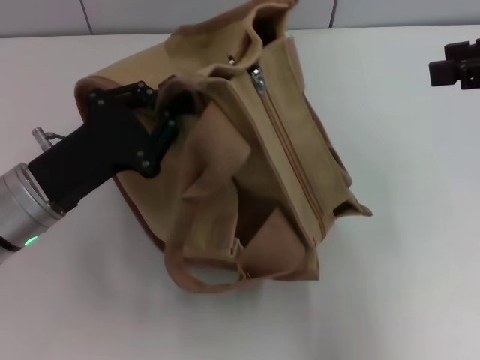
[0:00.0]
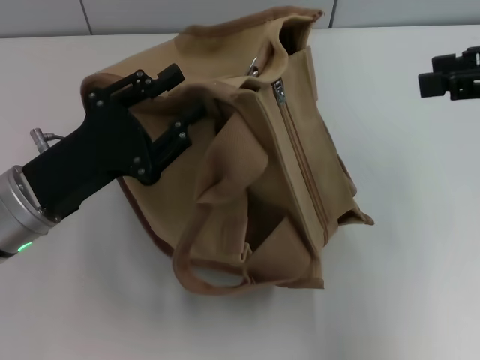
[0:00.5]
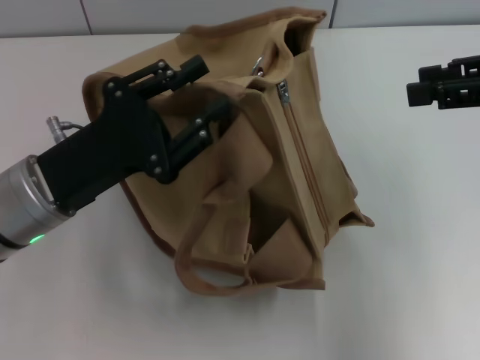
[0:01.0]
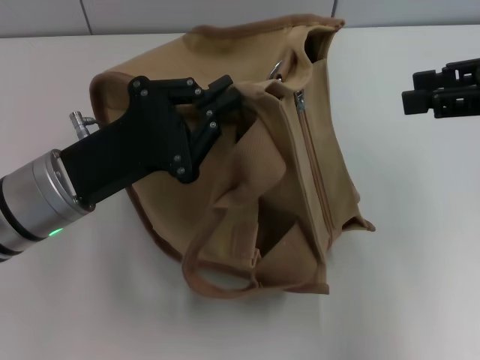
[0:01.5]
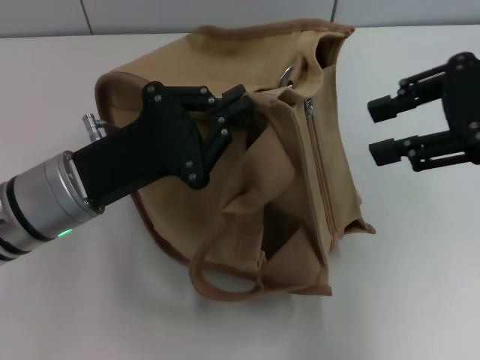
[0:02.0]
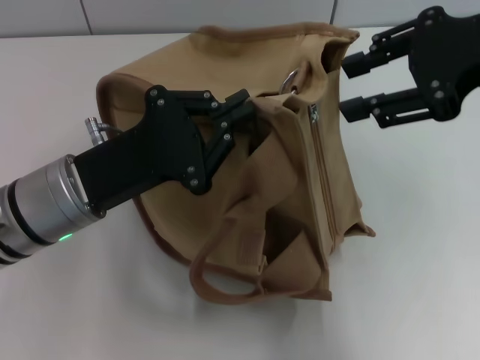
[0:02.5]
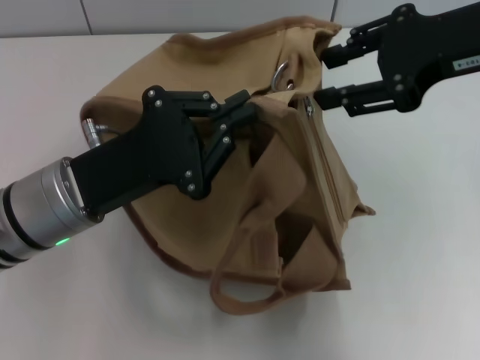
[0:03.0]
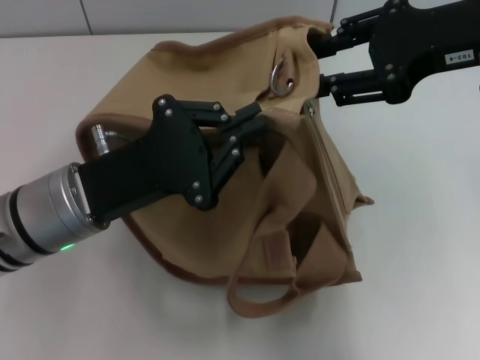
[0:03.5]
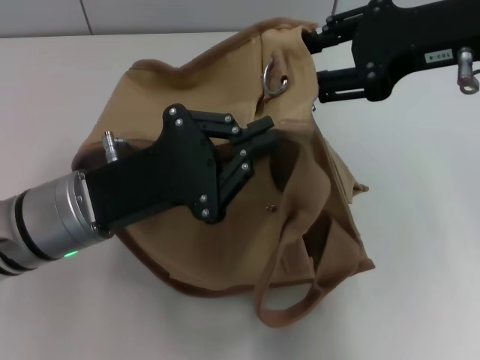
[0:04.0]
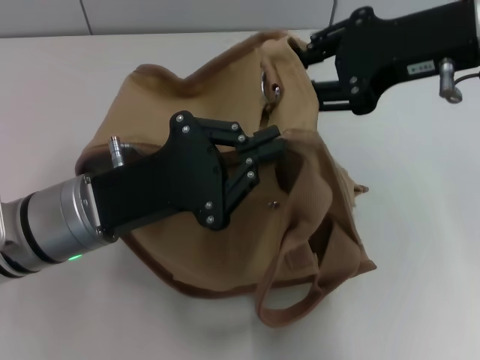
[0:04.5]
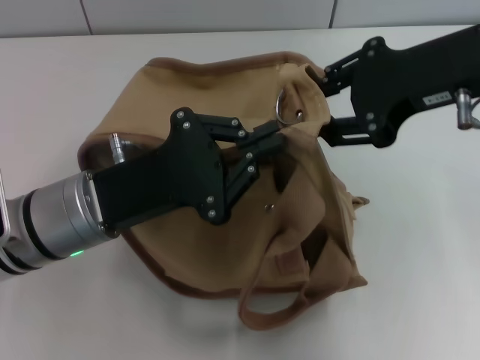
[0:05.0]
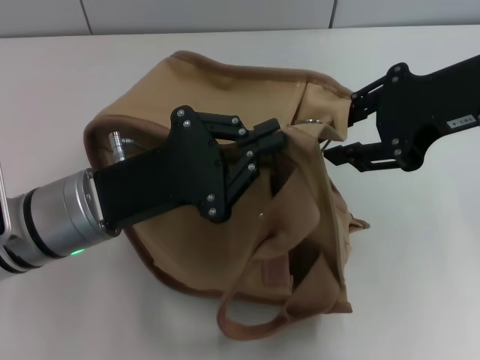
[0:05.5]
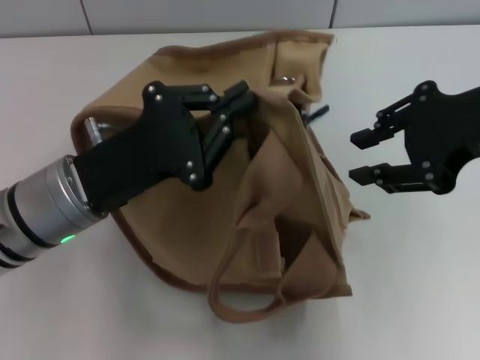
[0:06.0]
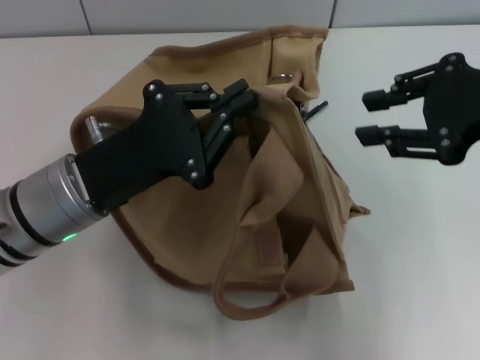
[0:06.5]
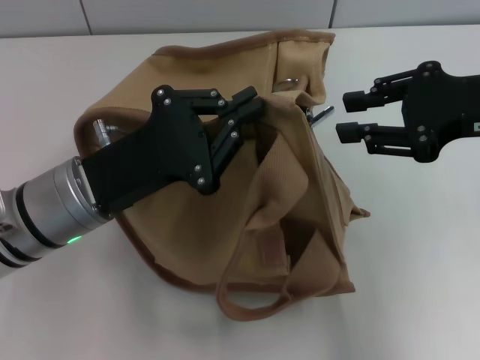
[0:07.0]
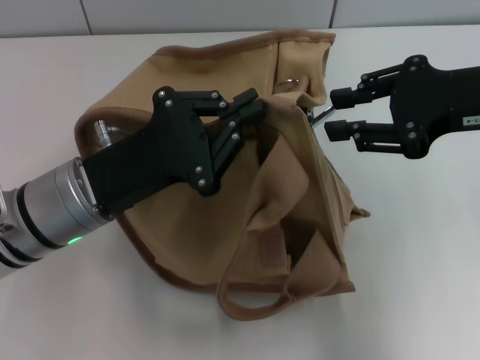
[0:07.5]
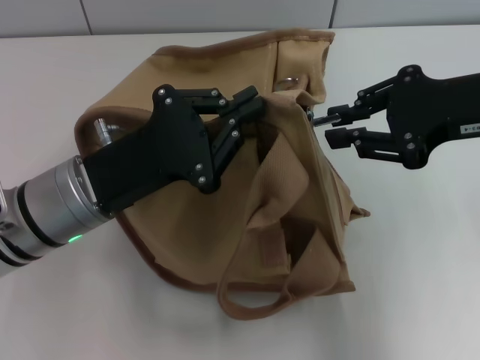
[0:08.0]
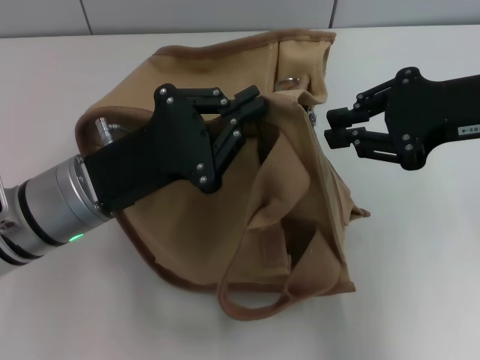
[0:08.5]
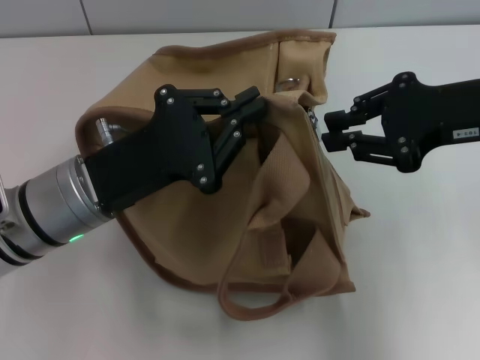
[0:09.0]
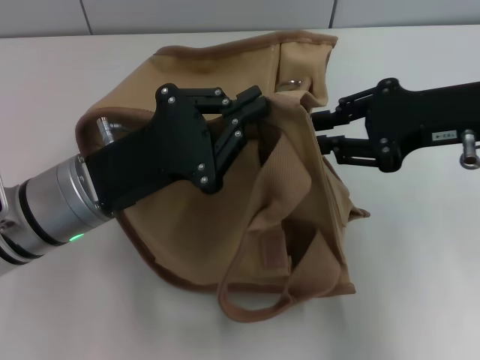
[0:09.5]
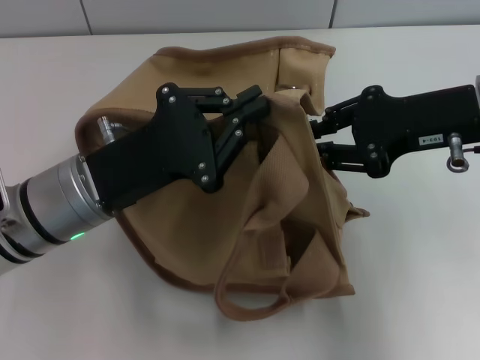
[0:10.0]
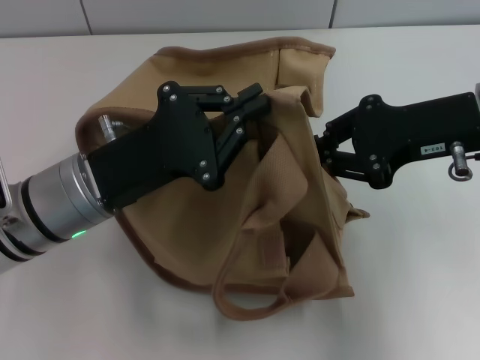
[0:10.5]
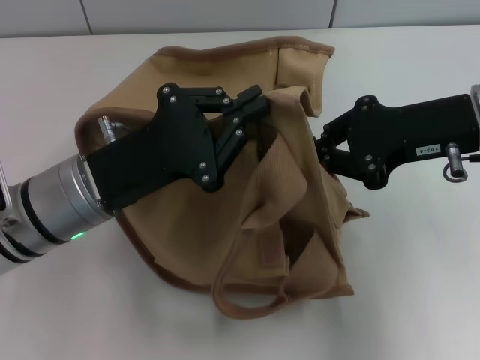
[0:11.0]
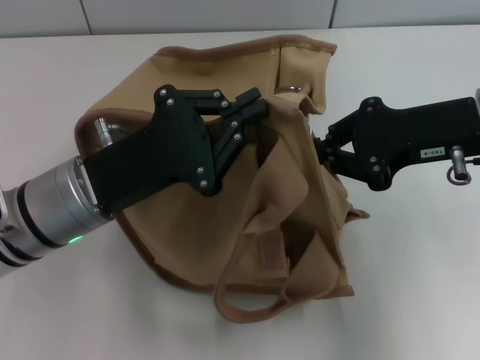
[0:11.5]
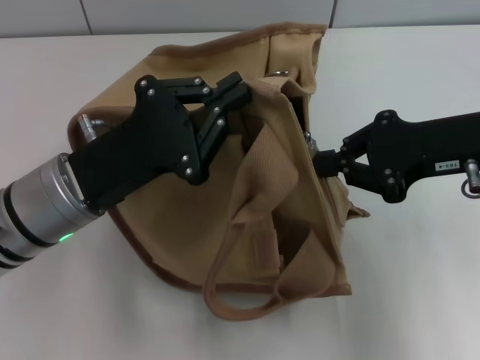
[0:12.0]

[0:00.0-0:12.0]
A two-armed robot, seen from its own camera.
0.0 to 2.0 s: The left gripper opens, then closes once more.
2.0 to 4.0 s: The right gripper moves roughly 5 cm.
4.0 to 6.0 s: The right gripper shifts about 5 cm backward.
6.0 to 8.0 s: The right gripper moves roughly 5 cm.
8.0 to 10.0 s: The grippers move only a little.
10.0 to 12.0 s: The right gripper closes.

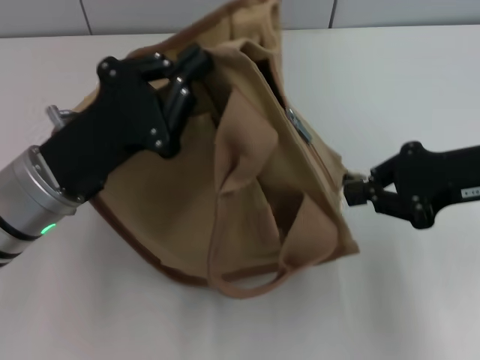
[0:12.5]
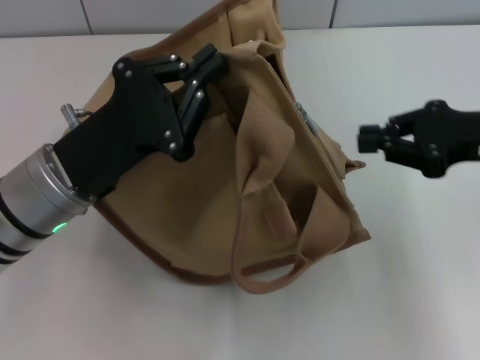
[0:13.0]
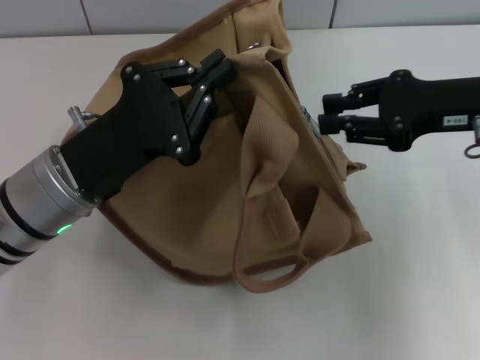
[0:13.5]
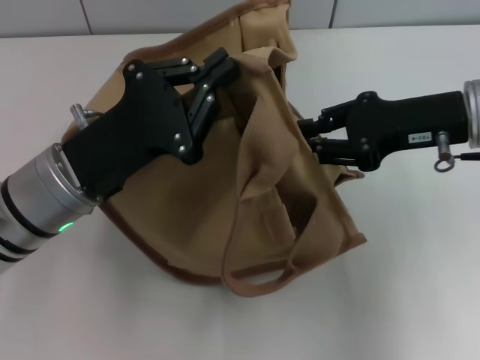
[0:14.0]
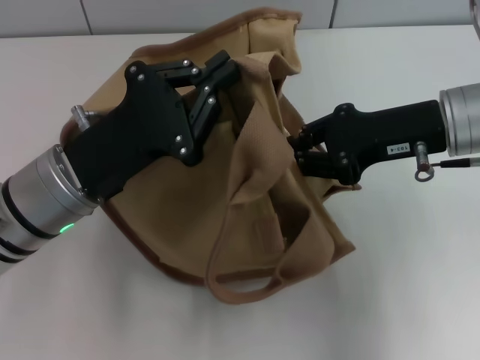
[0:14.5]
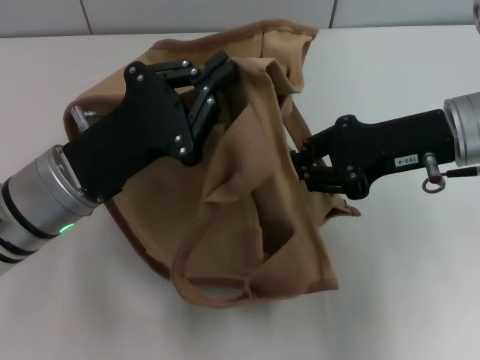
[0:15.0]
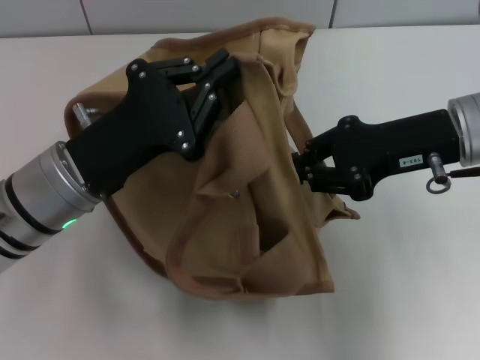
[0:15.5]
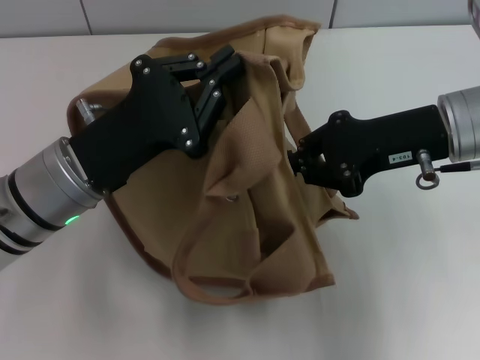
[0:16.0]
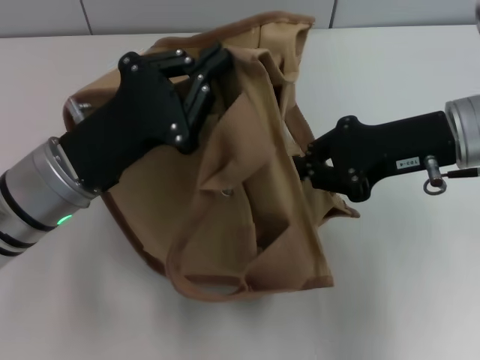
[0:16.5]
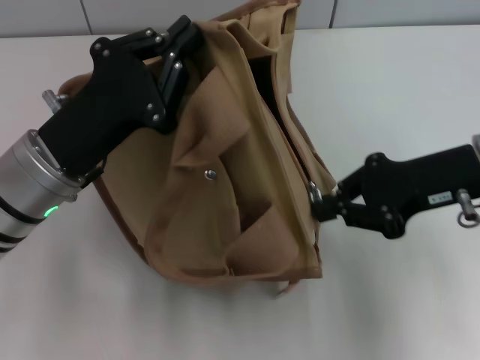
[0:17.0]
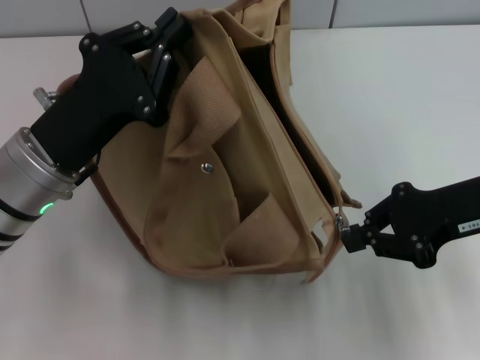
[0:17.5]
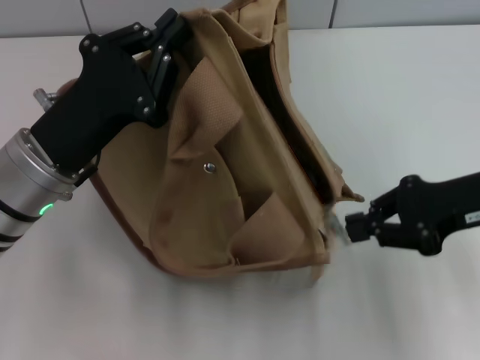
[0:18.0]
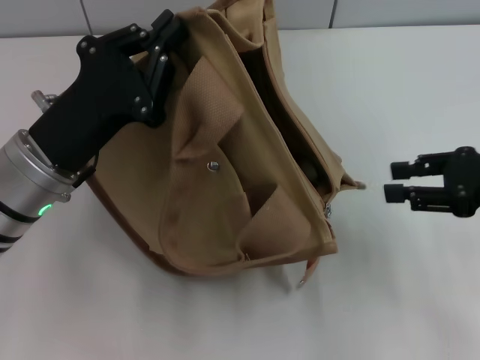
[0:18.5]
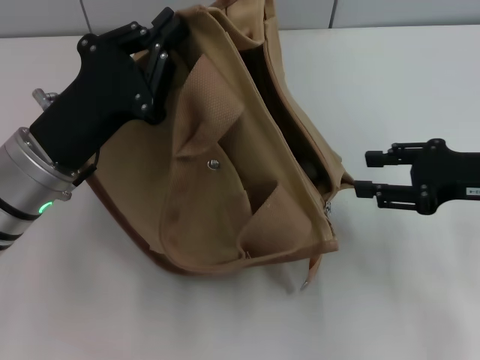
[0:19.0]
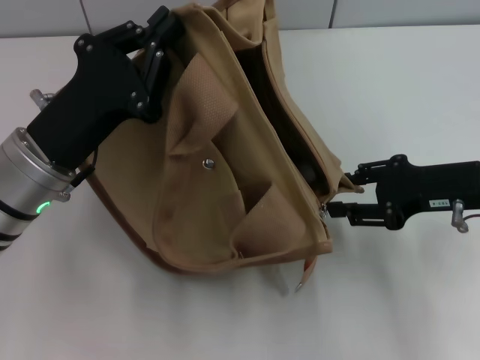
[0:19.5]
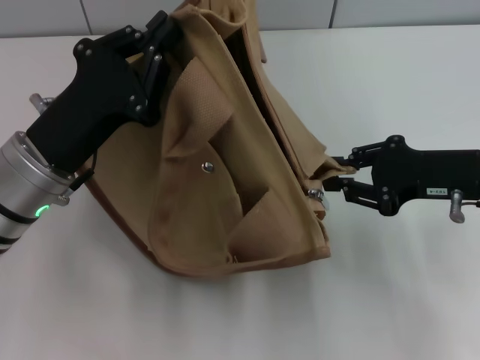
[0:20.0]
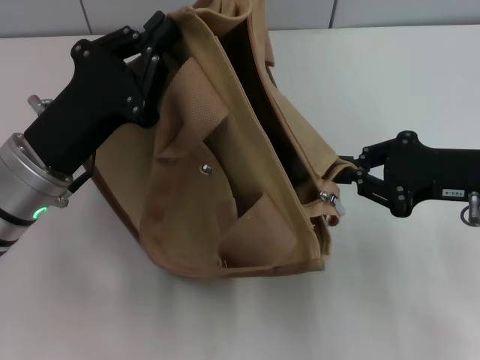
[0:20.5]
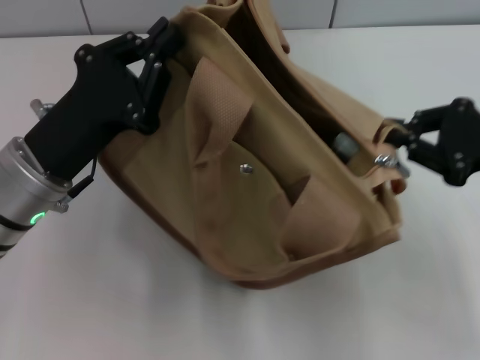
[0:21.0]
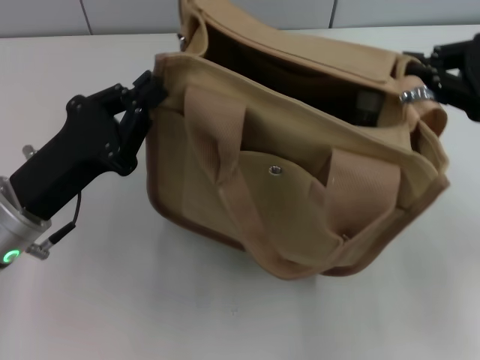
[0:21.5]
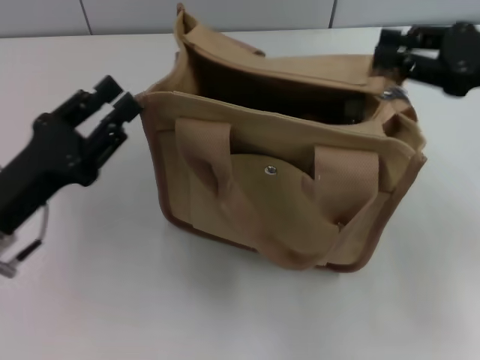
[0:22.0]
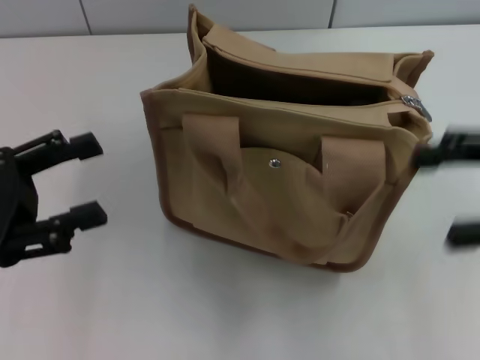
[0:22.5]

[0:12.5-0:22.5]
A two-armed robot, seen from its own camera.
Step, 12.5 to 18.0 s: Pull open the zipper with your right hand.
Step, 18.5 to 21.5 s: Grab the bag with your left hand.
12.5 to 14.5 s: The right gripper moves to the left, approximately 5 cm.
14.5 to 16.5 s: The two grippers keep their place.
16.5 to 18.5 s: The right gripper travels to the right by some 10 cm, and opens its fingers.
18.5 to 20.5 s: The right gripper shifts by about 5 cm, and opens, then closes once more.
20.5 to 22.5 s: The right gripper is displaced upward by roughly 5 cm, and opens its fingers, while the left gripper travels to the left by about 10 cm, and opens.

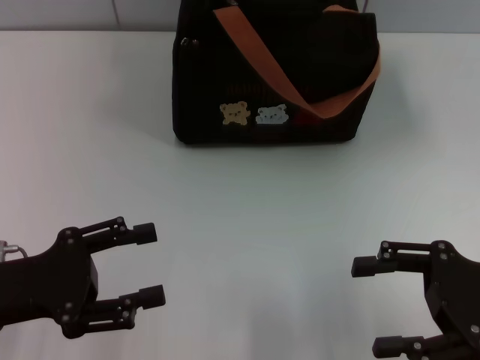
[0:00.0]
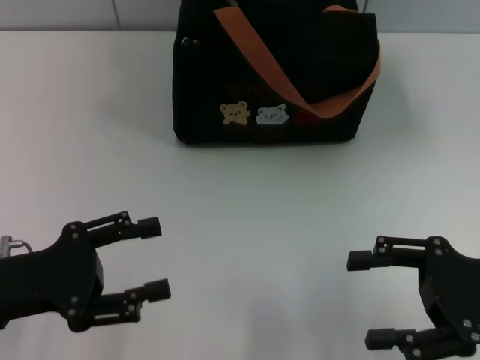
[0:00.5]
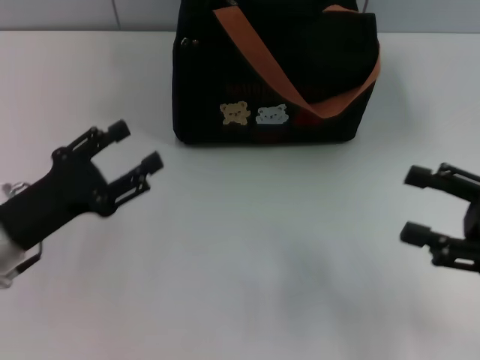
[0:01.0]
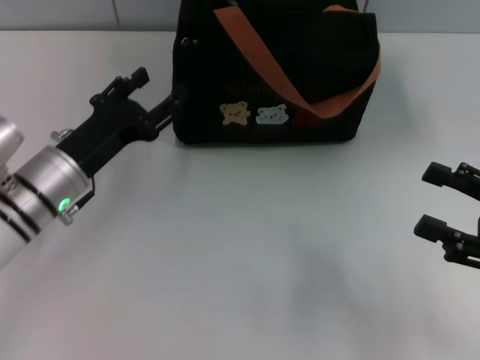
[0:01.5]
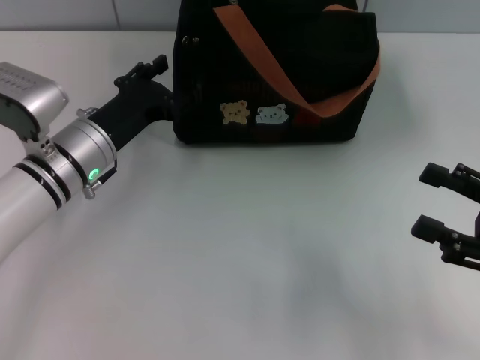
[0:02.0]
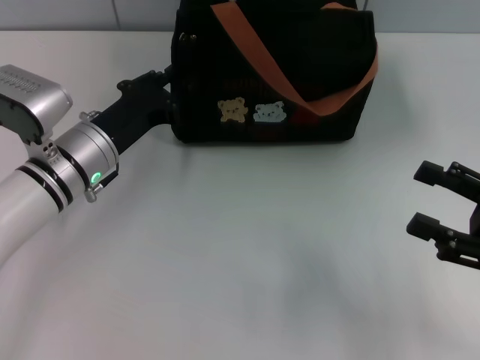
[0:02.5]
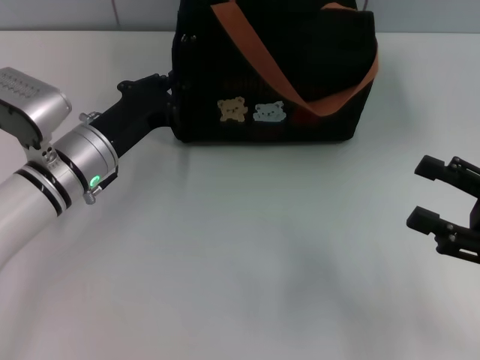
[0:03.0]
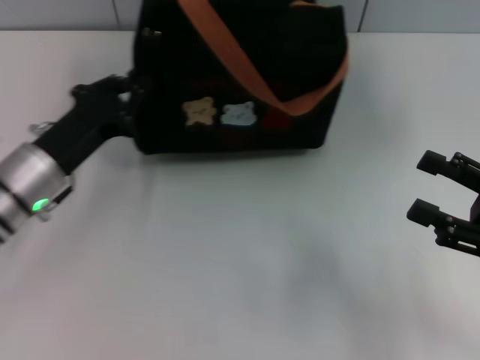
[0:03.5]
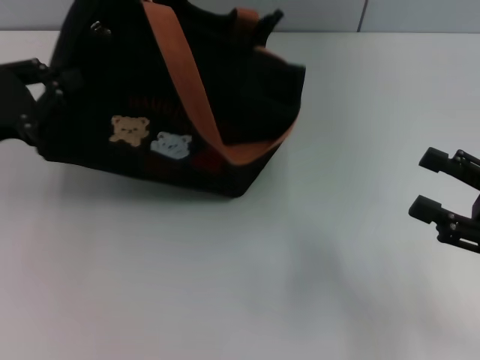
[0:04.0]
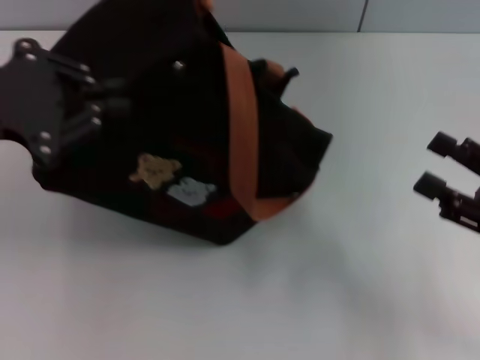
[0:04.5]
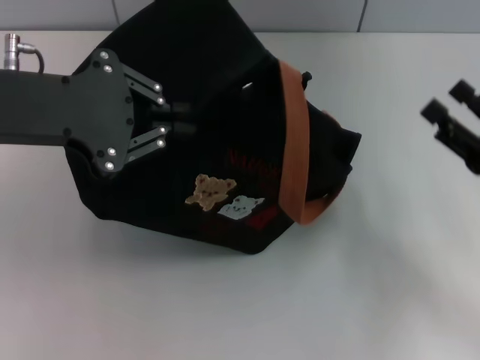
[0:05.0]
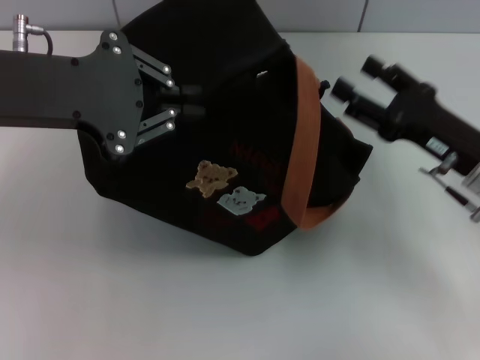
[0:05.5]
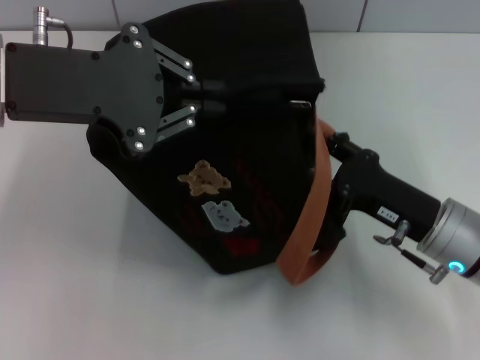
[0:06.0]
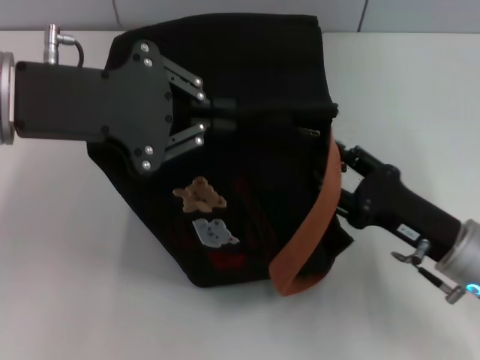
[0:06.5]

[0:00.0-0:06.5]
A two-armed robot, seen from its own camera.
0.0 to 2.0 s: The left gripper is displaced forward and to the right by some 15 cm.
2.0 to 4.5 s: The left gripper shifts about 20 cm upward and to the left, and closes its fingers.
4.5 to 6.5 s: The right gripper travels to the left by some 10 cm. Meanwhile the left gripper heads to the right, covering about 5 cm.
